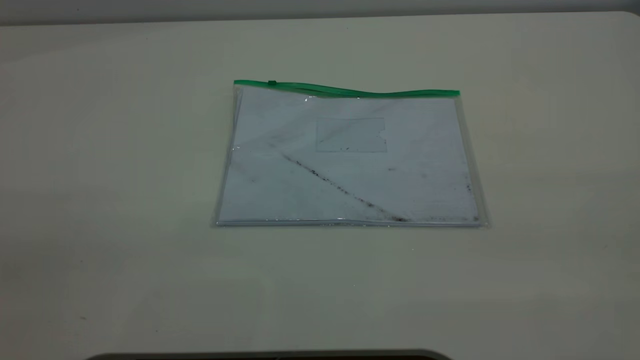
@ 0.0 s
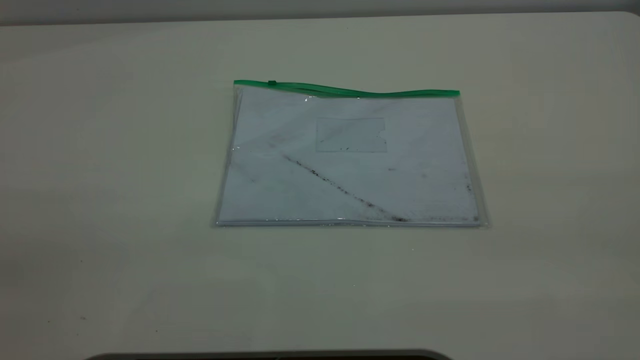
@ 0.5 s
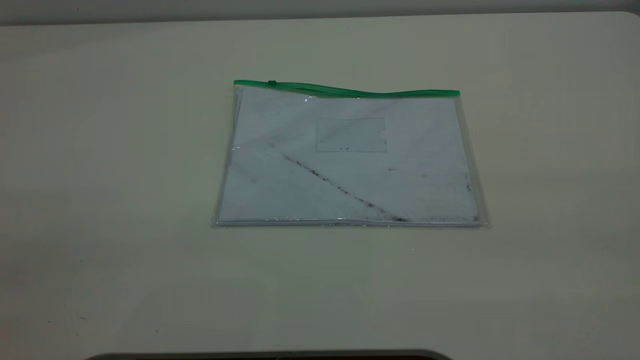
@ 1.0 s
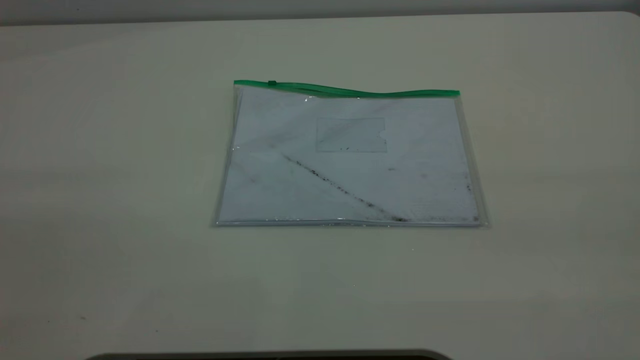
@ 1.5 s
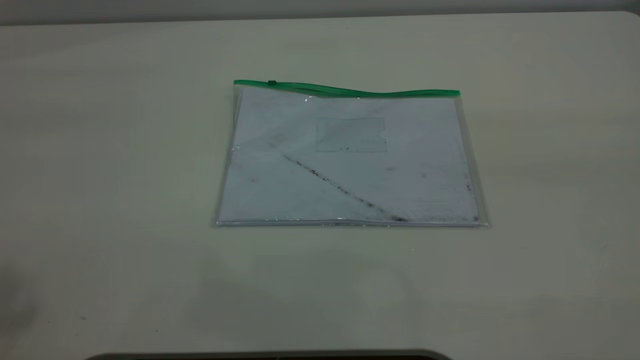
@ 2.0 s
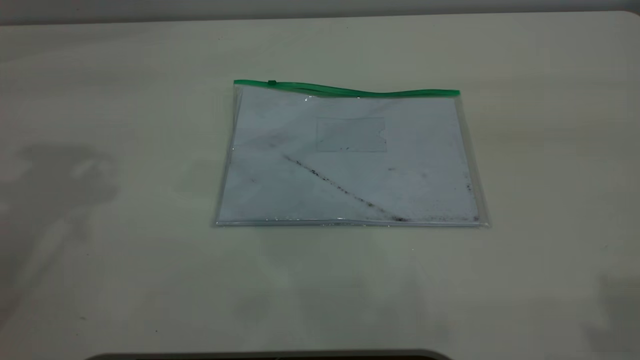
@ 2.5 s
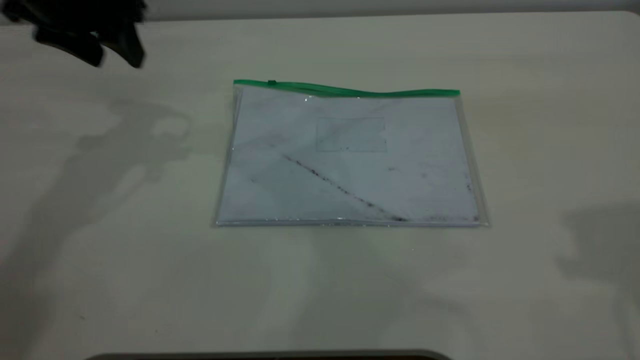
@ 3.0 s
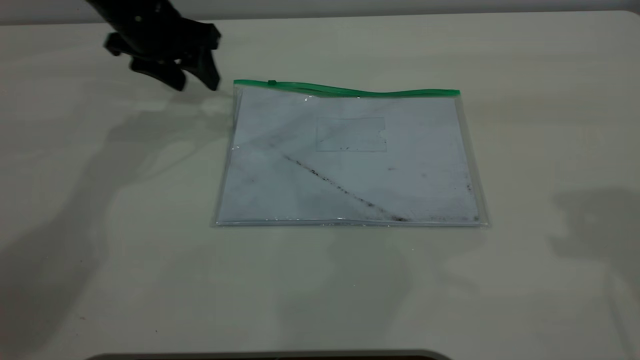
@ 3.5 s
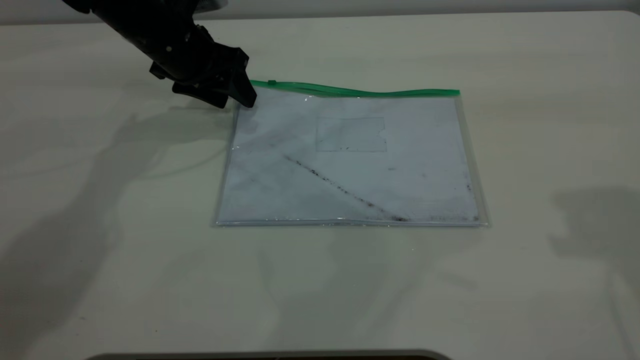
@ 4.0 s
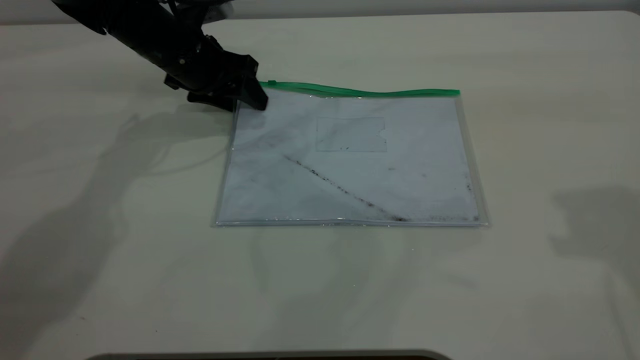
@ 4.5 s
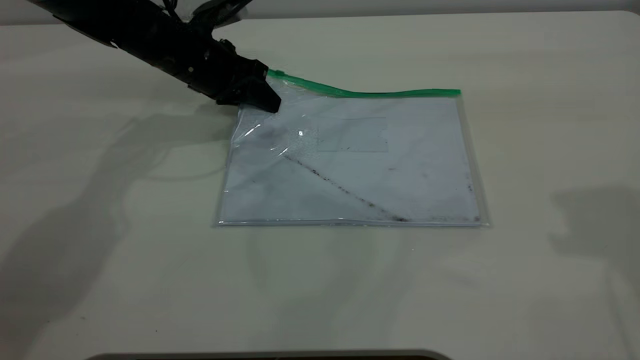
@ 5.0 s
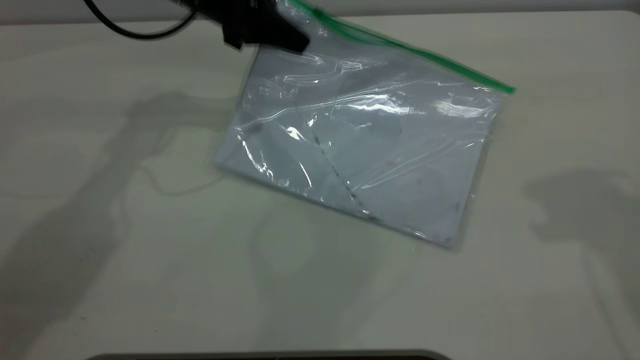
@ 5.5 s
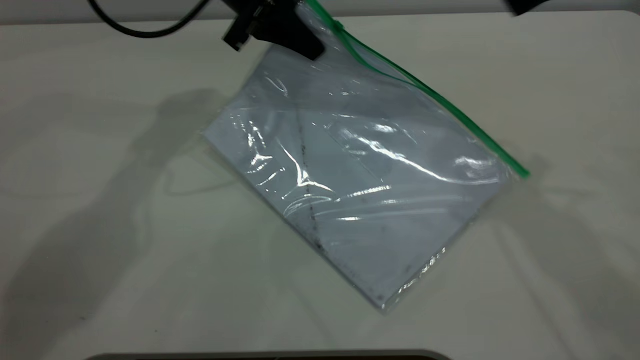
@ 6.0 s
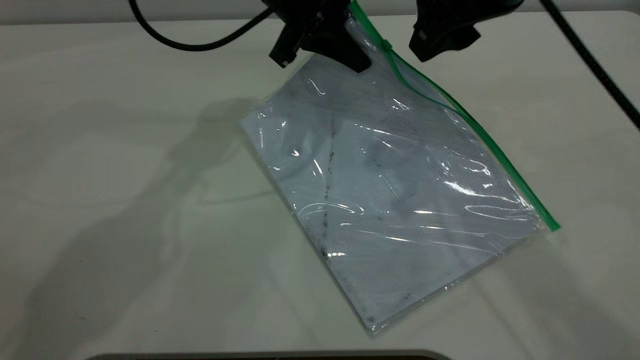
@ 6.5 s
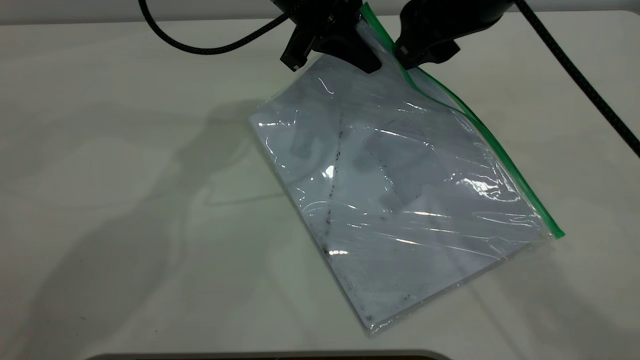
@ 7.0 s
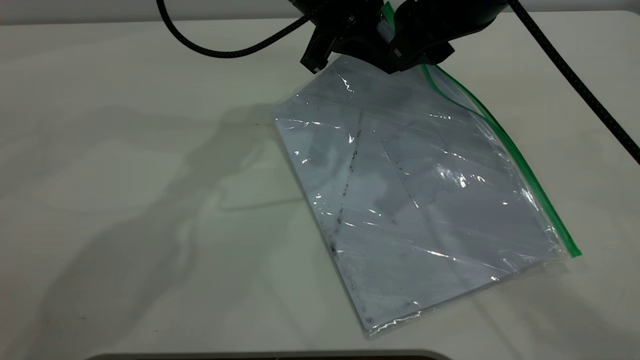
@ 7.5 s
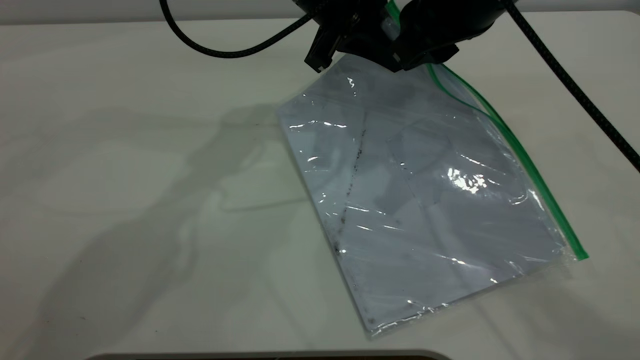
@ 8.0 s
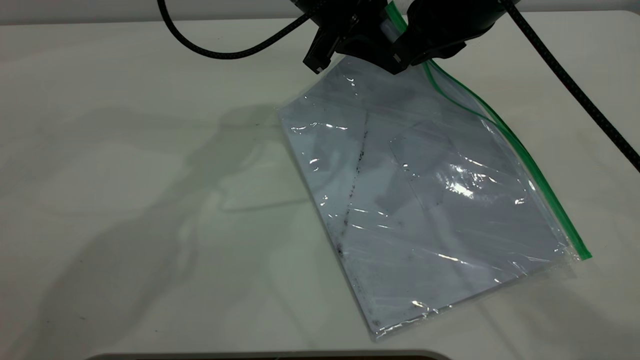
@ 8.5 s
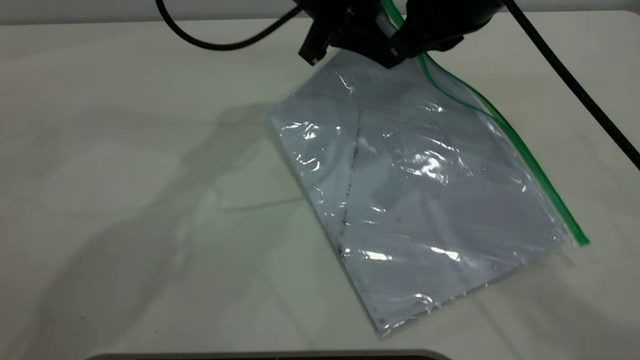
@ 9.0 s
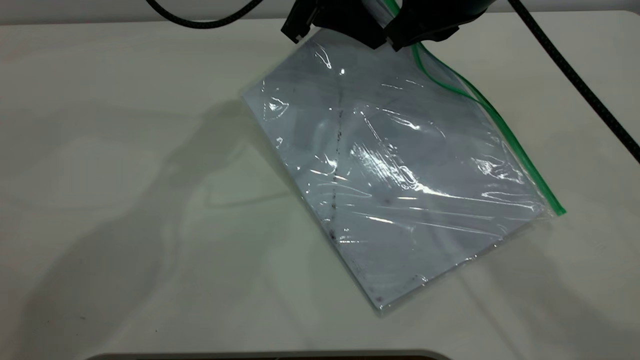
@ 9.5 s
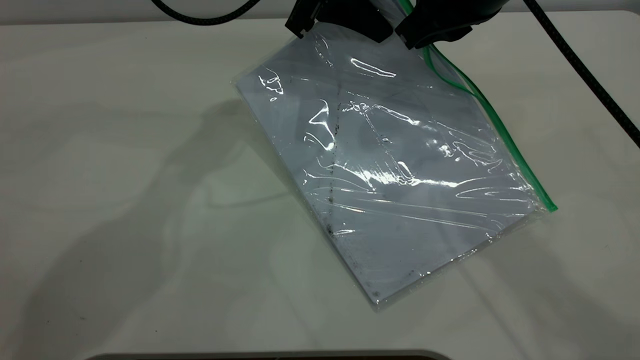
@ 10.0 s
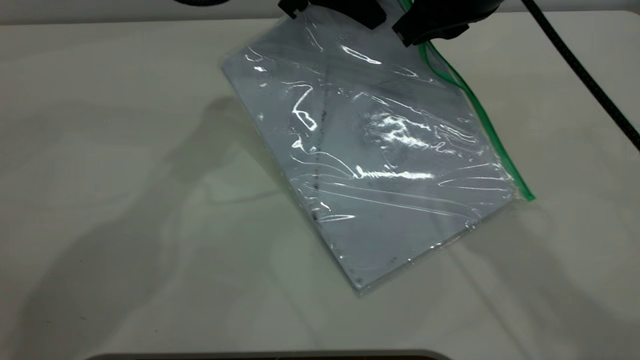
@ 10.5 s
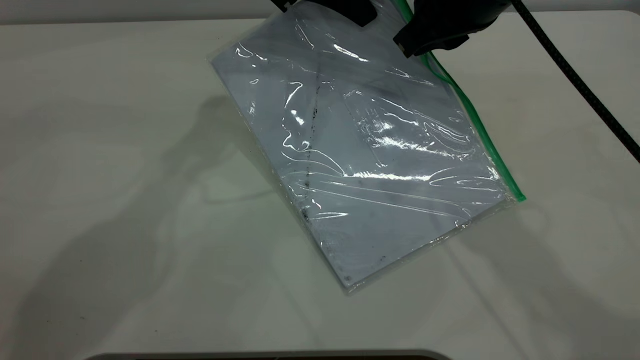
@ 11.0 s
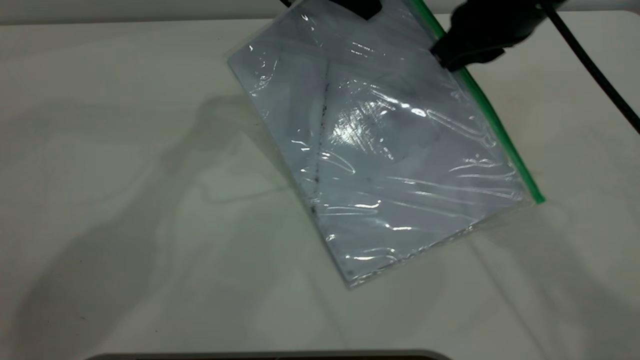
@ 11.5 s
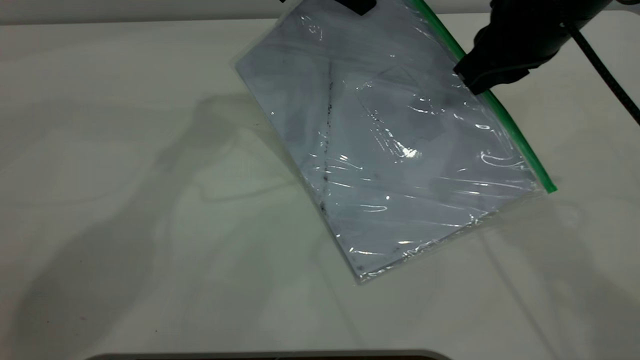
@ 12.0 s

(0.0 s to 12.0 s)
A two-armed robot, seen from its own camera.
Step, 0.0 s - 5.0 s: Pick up the transparent plastic bag with the left gripper.
2.0 s - 4.0 s: The left gripper goes approximately 40 cm downward, forward and to the right. The right gripper moves forward and downward, approximately 20 cm.
4.0 s - 6.0 s: The right gripper goes roughly 10 cm to the left and forward; the left gripper goes roughly 10 cm to the right and upward, and closes its fingers.
6.0 s - 8.0 s: The left gripper shifts about 10 cm to the right. The right gripper heads to the left and downward, covering about 10 cm, and closes up.
8.0 s - 10.0 s: The right gripper closes up.
10.0 s - 12.0 s: The right gripper heads to the right, covering roughly 5 cm.

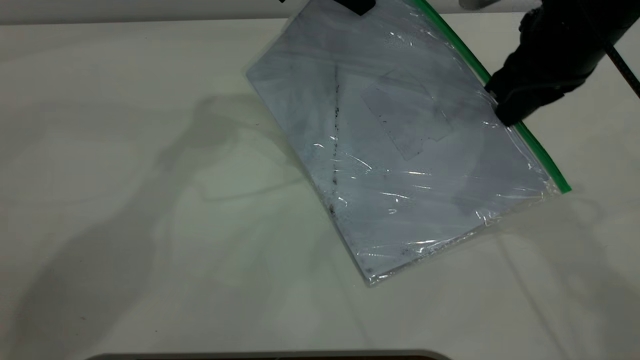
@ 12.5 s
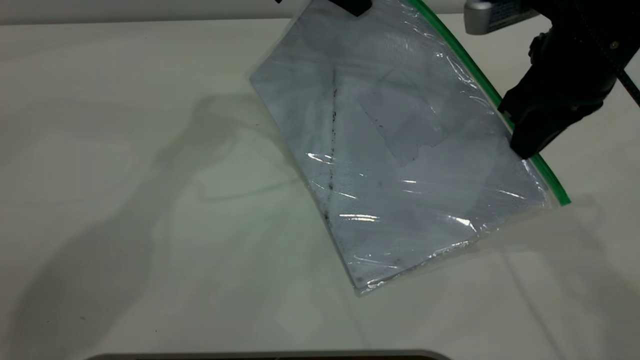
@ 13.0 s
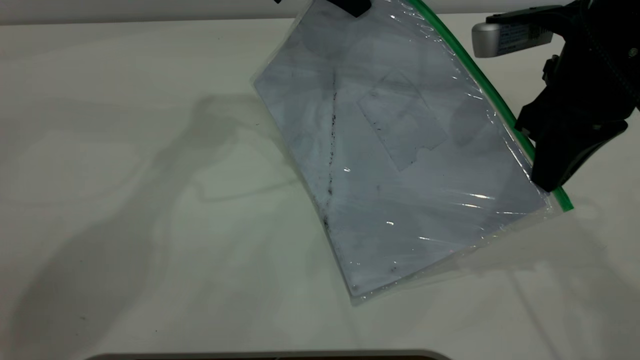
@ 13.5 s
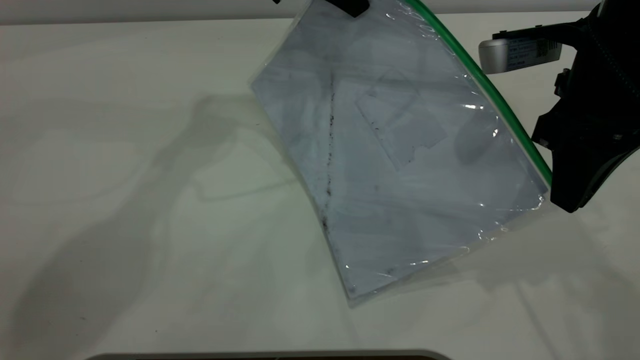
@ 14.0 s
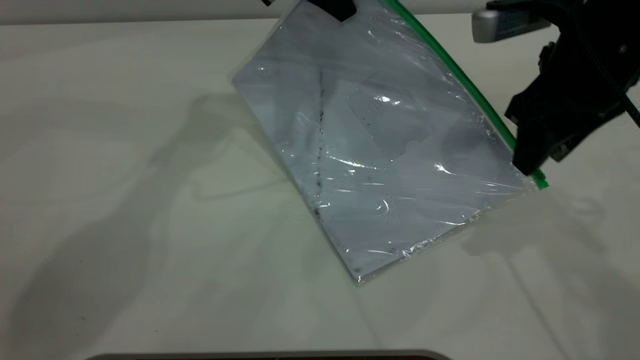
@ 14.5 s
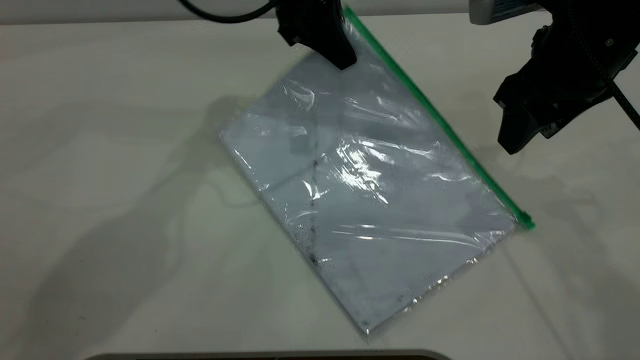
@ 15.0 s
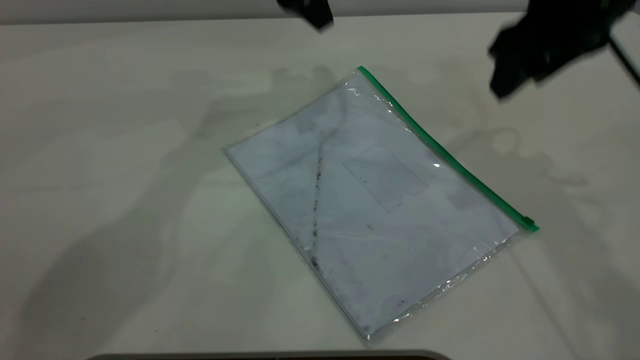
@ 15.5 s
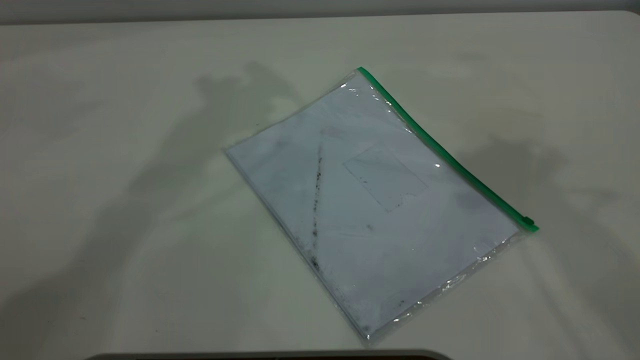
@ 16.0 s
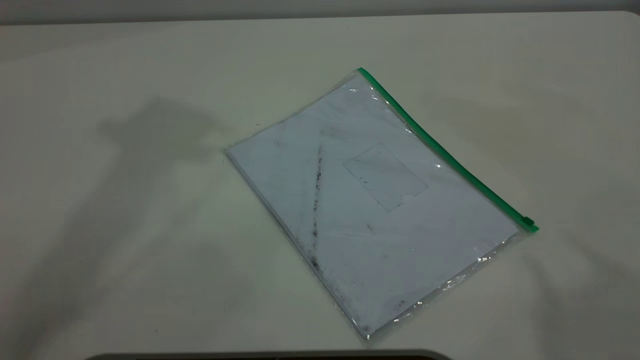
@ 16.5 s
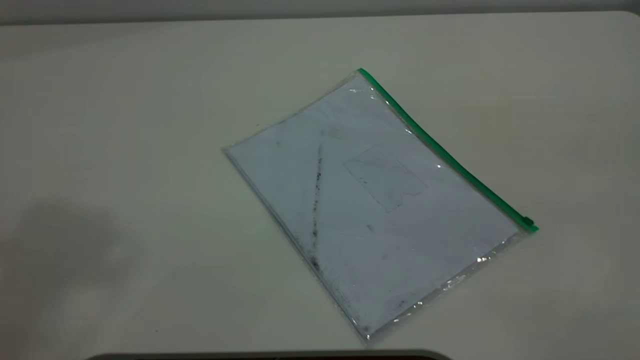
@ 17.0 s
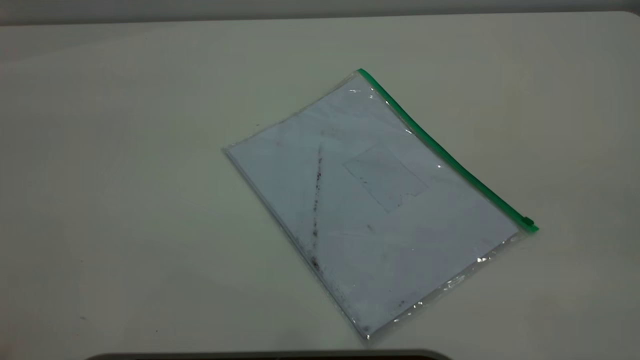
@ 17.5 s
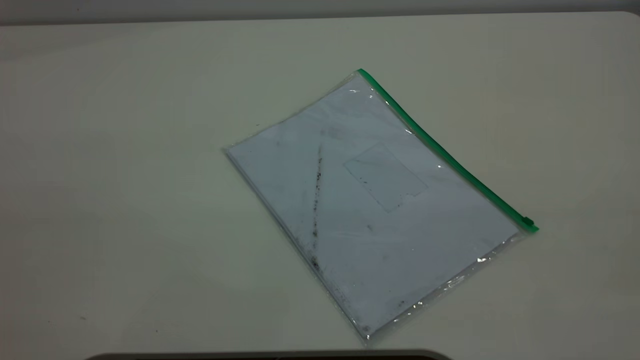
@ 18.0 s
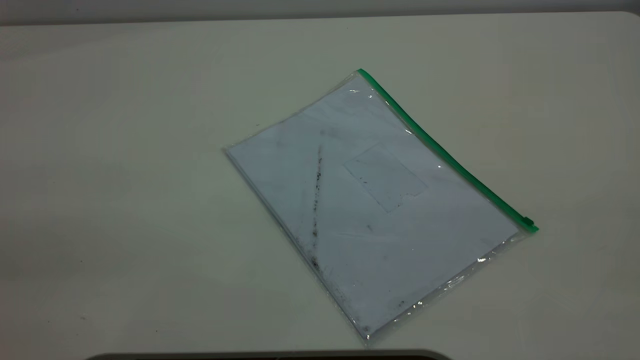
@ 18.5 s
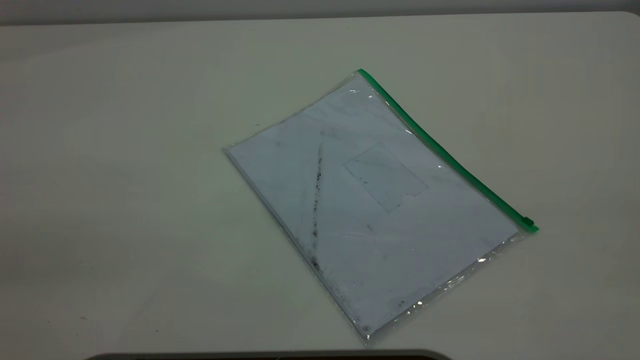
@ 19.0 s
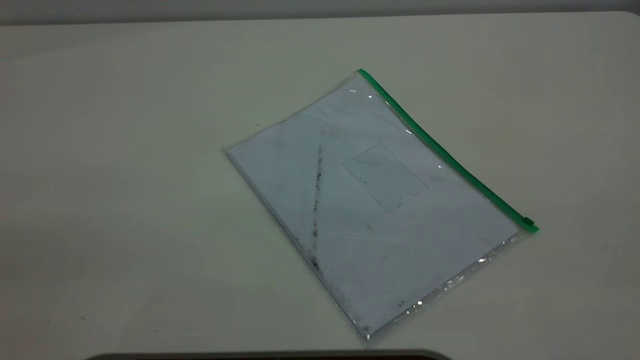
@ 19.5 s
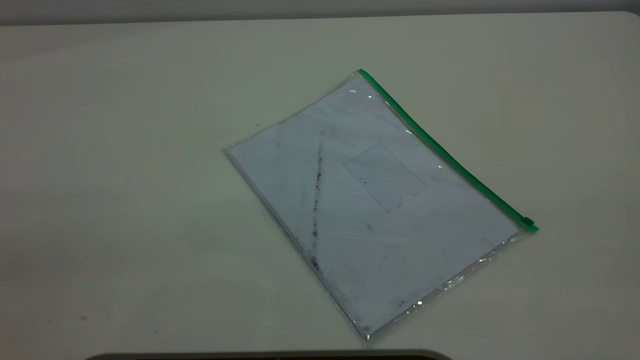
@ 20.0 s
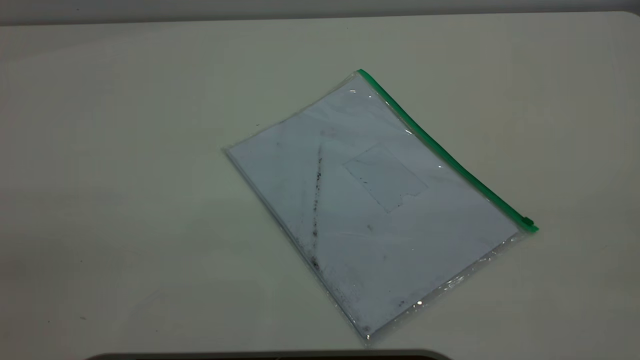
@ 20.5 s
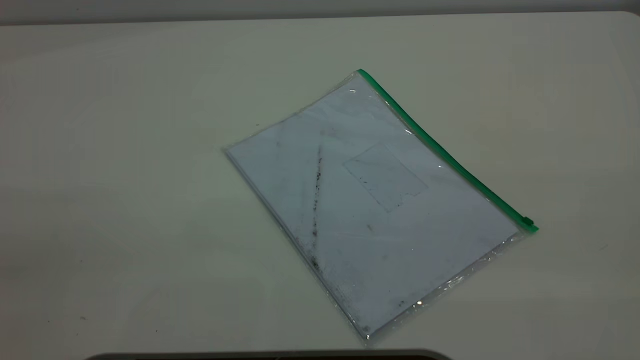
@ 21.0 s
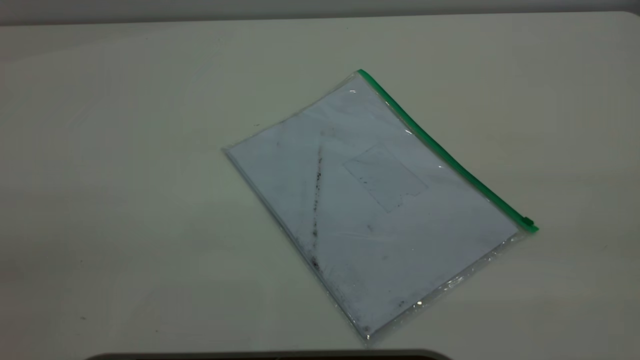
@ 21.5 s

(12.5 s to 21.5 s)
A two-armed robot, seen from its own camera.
Step, 12.5 s - 14.5 s: Pulling up the zipper on the transparent plastic bag with the right gripper to close it.
12.5 s - 14.5 s: The right gripper opens up.
14.5 s - 17.0 s: The right gripper heads upward and backward, covering some 50 cm. Meanwhile the left gripper travels upward, backward and to the left by some 50 cm, and opens.
